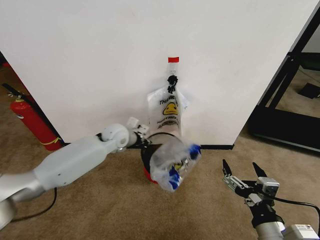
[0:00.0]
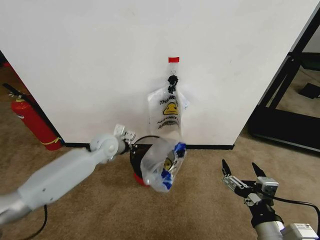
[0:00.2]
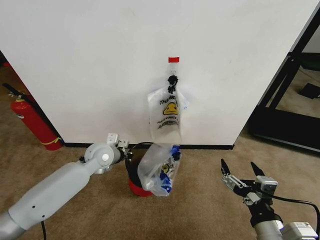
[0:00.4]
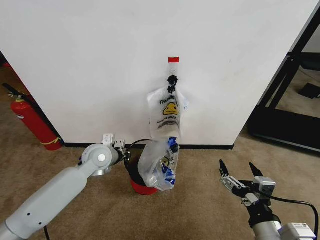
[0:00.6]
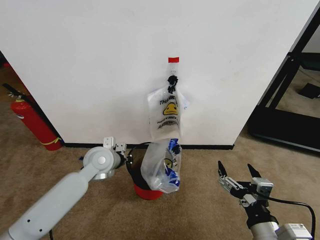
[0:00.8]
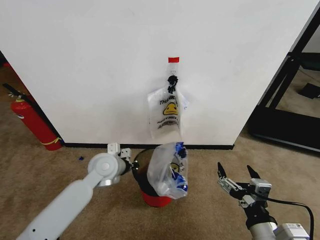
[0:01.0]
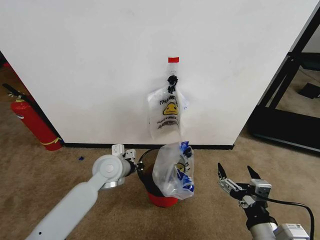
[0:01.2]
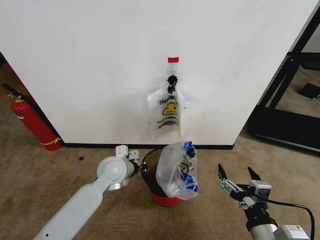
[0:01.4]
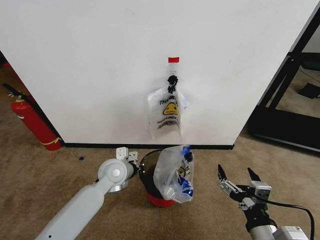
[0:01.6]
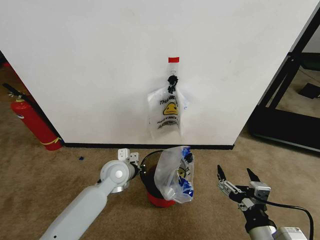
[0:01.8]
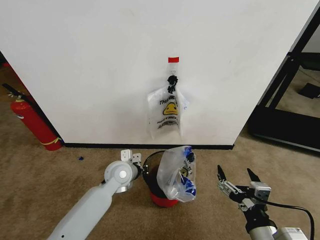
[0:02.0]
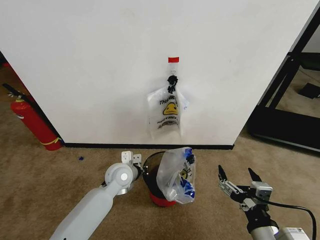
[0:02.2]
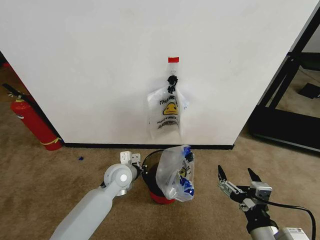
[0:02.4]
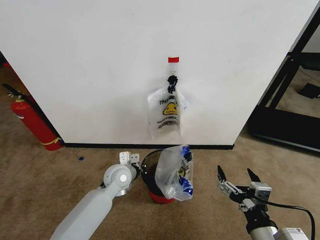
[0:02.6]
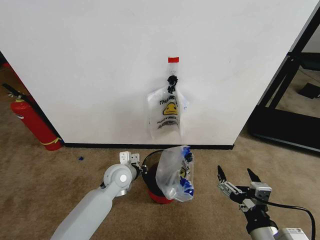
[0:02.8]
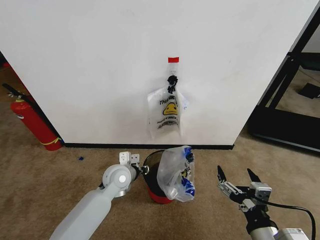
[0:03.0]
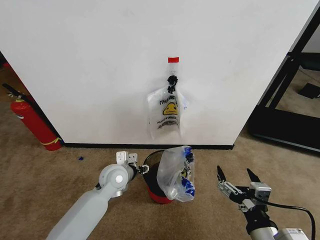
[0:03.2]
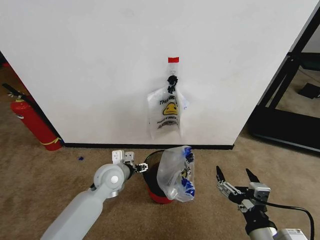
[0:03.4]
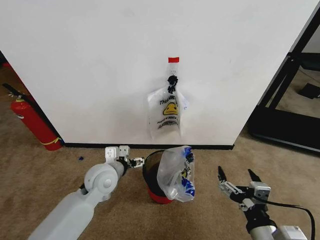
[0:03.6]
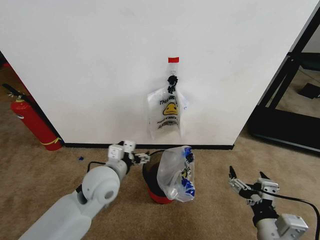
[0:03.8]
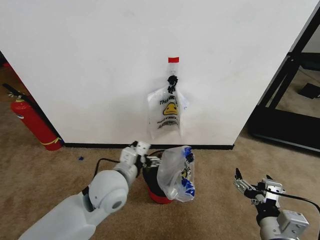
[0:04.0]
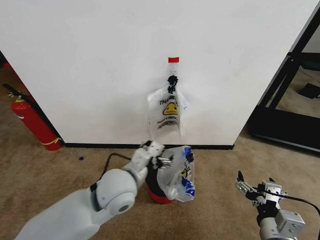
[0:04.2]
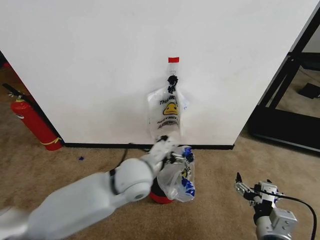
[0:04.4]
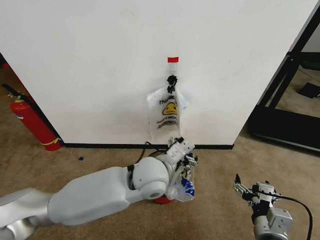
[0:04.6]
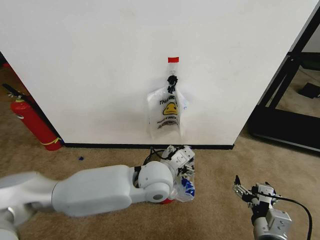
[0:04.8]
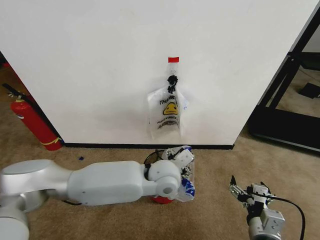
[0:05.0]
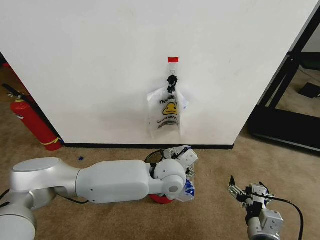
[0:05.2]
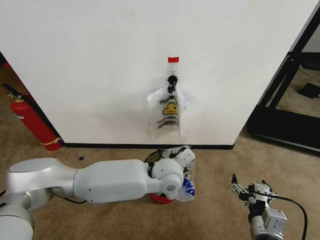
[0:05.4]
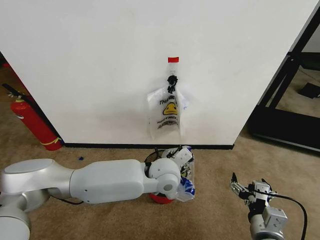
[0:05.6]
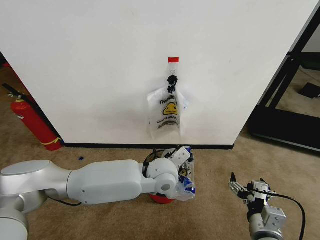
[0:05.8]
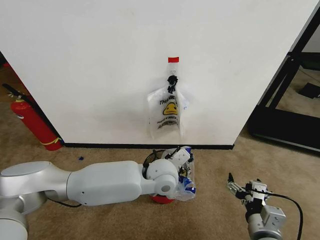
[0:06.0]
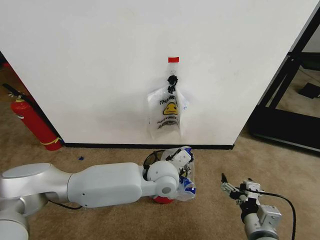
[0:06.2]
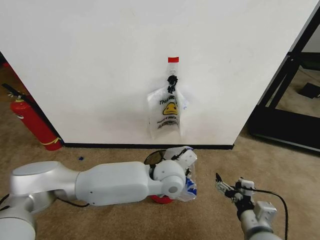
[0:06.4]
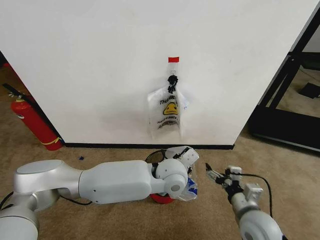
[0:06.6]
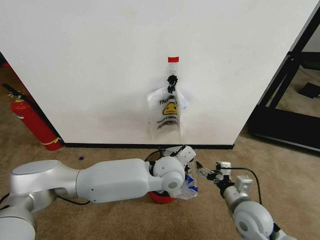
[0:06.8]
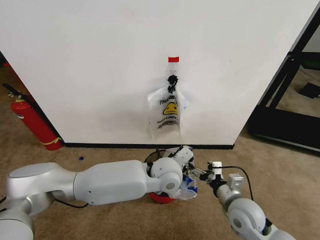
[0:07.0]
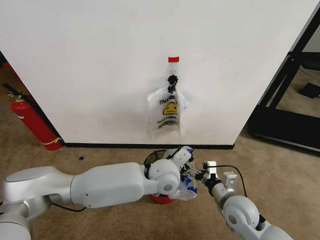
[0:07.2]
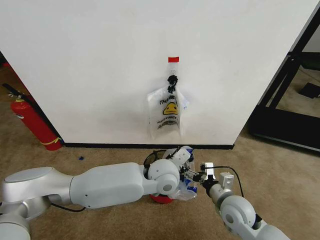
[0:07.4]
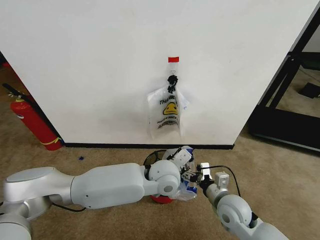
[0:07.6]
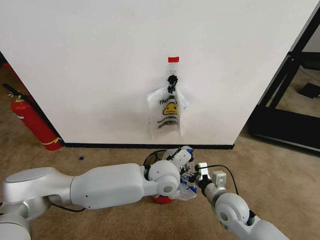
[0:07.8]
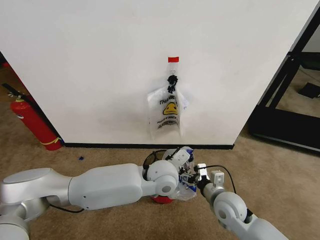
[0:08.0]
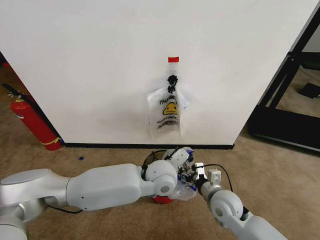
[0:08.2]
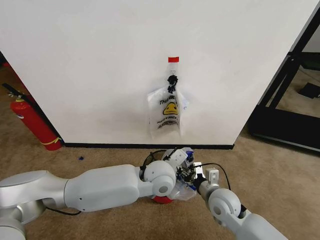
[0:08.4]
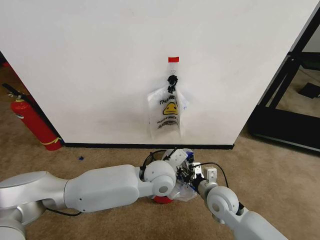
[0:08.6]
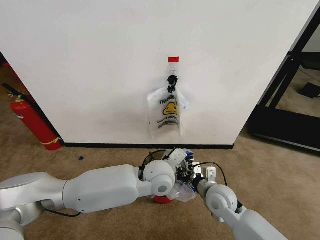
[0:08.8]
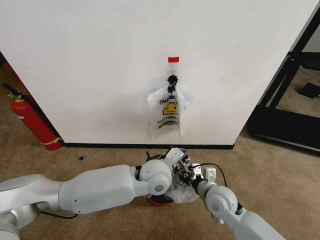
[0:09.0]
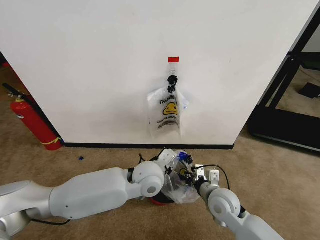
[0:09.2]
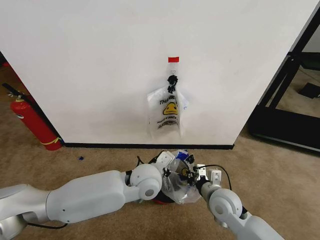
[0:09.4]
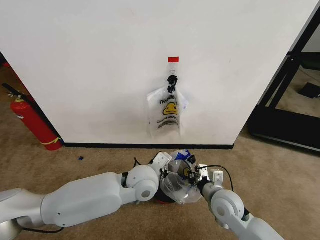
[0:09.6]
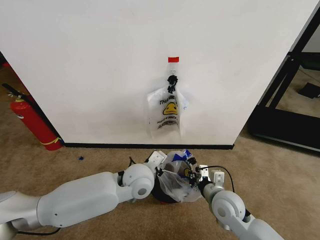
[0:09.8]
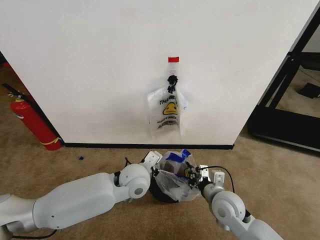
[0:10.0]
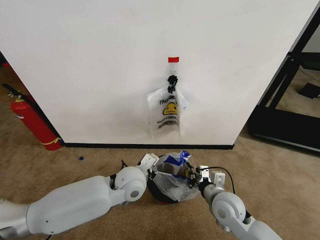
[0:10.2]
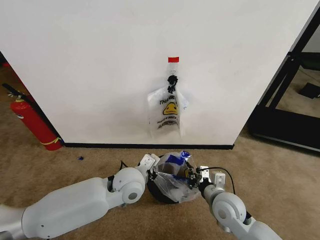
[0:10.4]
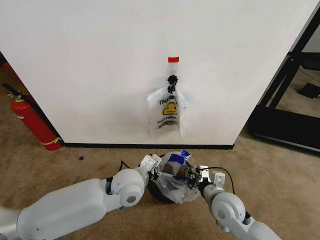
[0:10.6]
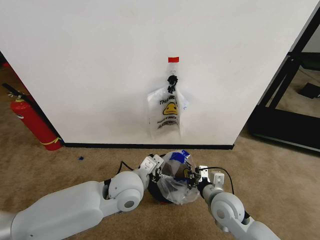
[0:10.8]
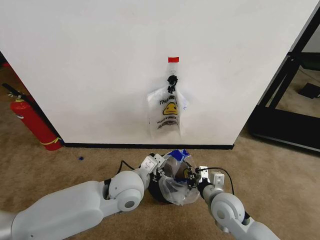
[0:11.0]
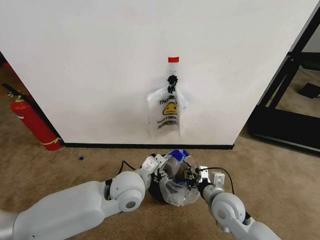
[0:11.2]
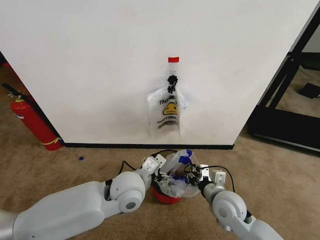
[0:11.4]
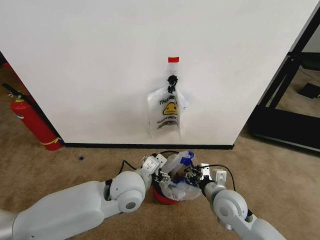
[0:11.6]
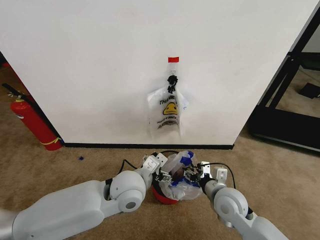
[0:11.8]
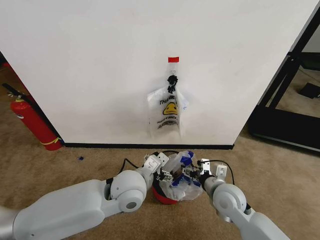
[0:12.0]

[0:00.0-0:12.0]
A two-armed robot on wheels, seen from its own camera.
Task of the whole recording: Pick up the garbage bag from the wall and place it over the trash bin.
0:00.0 to 0:01.6: The left gripper shifts approximately 15 cm backward and downward.
0:01.6 to 0:03.0: The left gripper opens its fingers.
0:03.0 to 0:04.4: The right gripper shifts by some 5 cm, while the left gripper goes roughly 15 cm upward, to the right and backward, and opens its fingers.
0:04.4 to 0:06.0: The left gripper is displaced to the right by approximately 5 cm, and closes.
0:06.0 to 0:07.6: The right gripper is displaced forward by about 10 cm.
0:07.6 to 0:09.0: The right gripper closes up.
0:09.0 to 0:10.4: The left gripper moves to the left, about 10 cm.
0:10.4 to 0:12.0: The left gripper shifts by roughly 5 cm, and opens; the right gripper opens up.

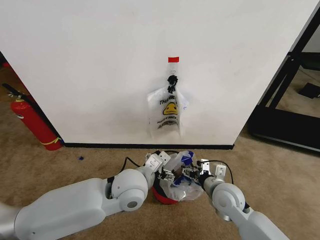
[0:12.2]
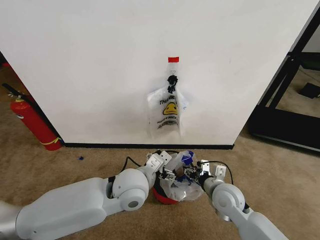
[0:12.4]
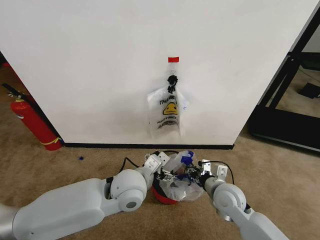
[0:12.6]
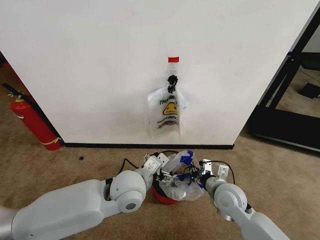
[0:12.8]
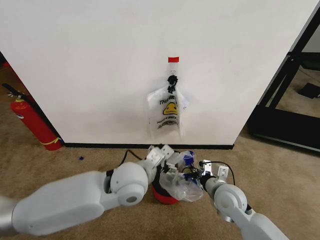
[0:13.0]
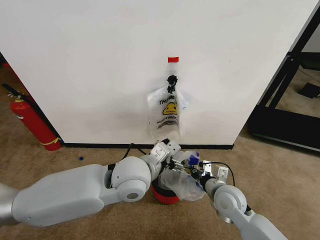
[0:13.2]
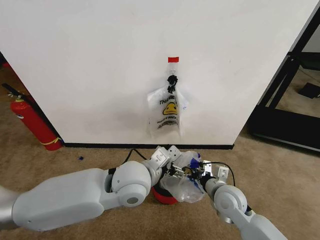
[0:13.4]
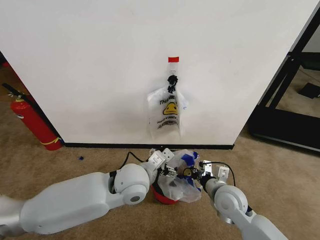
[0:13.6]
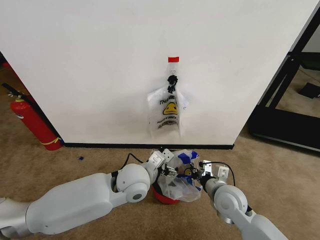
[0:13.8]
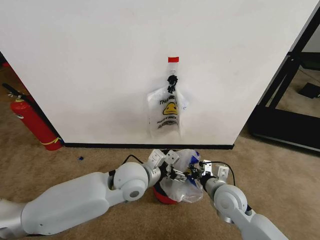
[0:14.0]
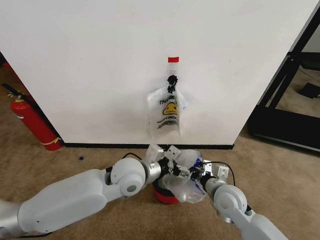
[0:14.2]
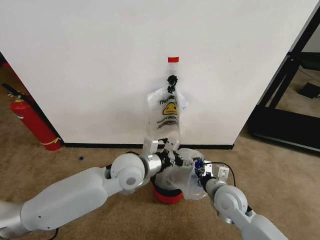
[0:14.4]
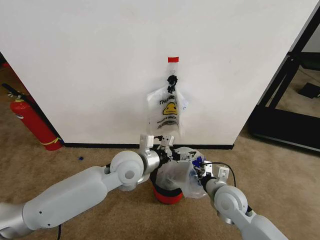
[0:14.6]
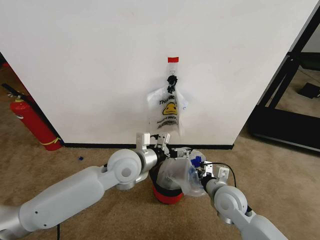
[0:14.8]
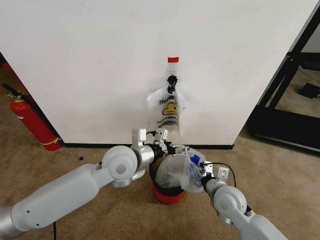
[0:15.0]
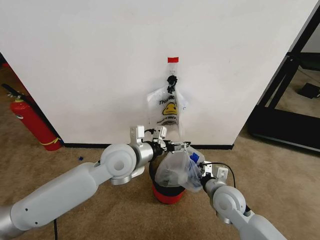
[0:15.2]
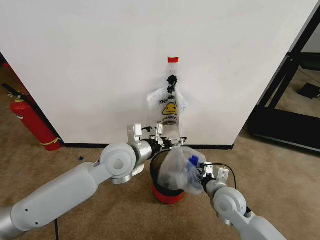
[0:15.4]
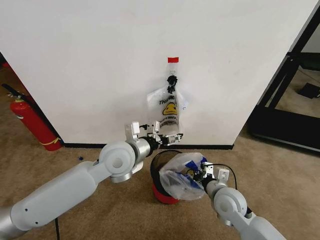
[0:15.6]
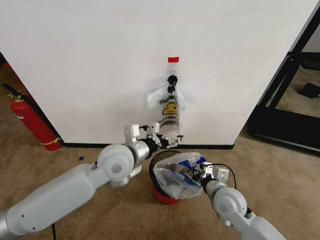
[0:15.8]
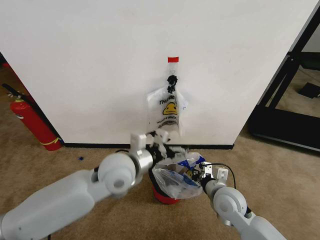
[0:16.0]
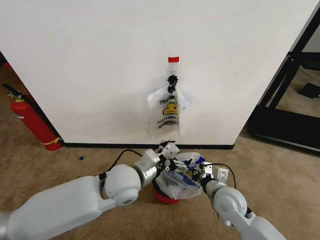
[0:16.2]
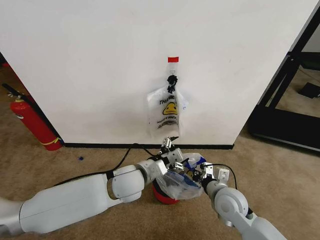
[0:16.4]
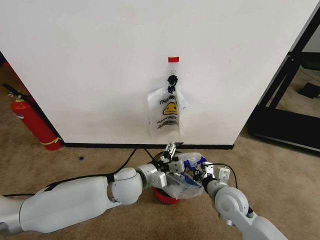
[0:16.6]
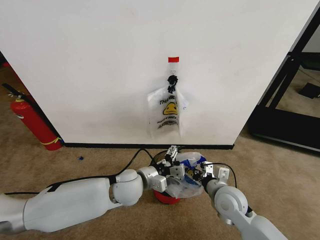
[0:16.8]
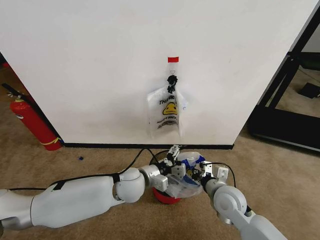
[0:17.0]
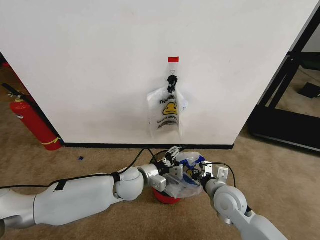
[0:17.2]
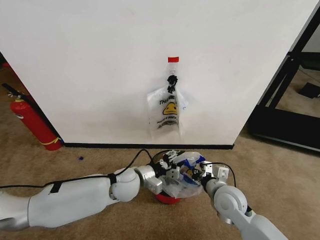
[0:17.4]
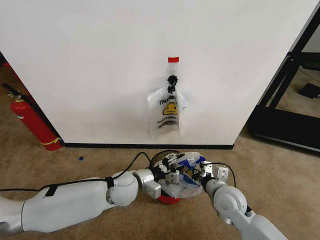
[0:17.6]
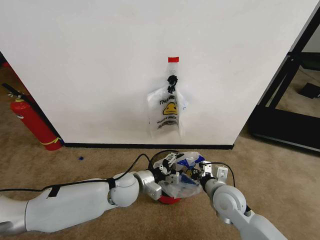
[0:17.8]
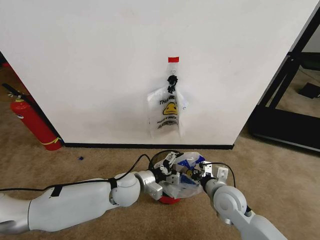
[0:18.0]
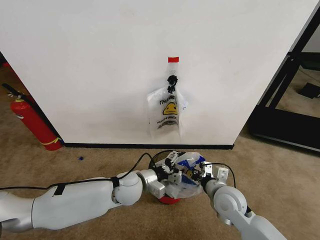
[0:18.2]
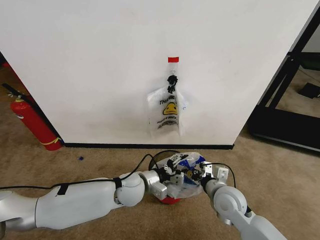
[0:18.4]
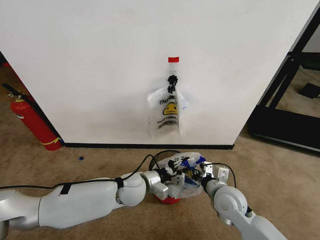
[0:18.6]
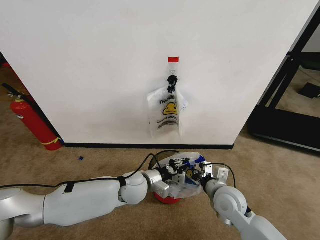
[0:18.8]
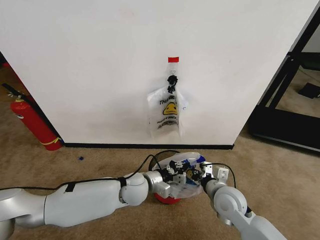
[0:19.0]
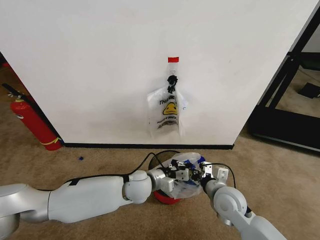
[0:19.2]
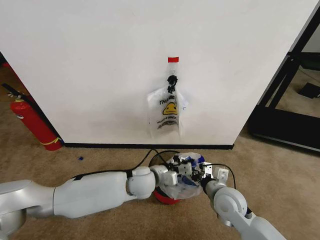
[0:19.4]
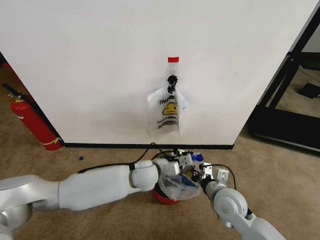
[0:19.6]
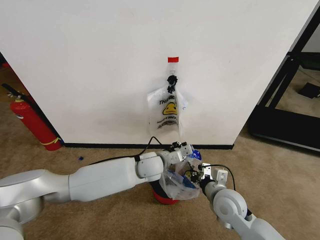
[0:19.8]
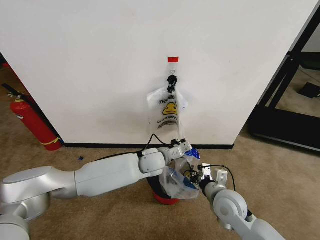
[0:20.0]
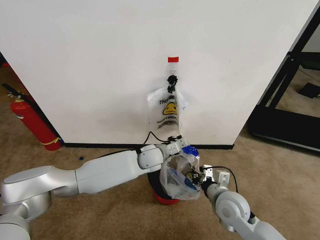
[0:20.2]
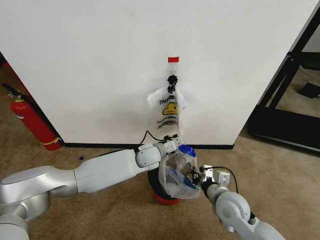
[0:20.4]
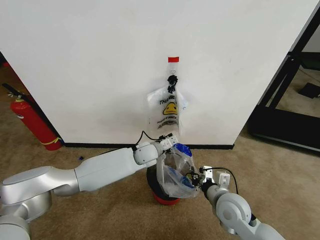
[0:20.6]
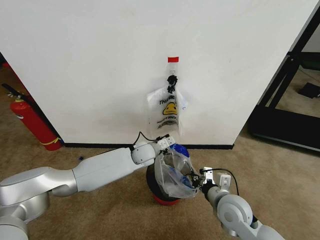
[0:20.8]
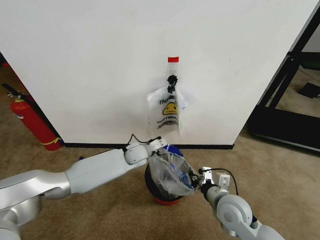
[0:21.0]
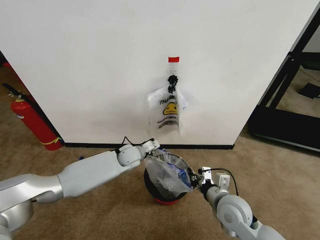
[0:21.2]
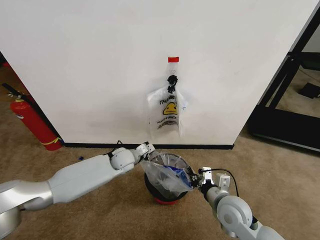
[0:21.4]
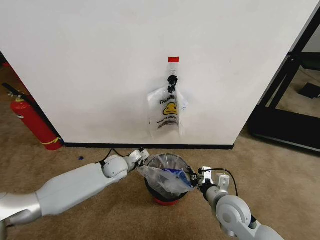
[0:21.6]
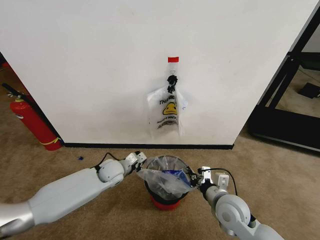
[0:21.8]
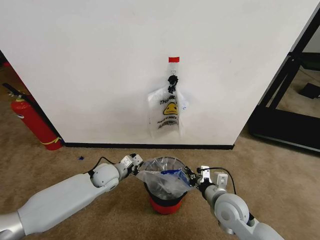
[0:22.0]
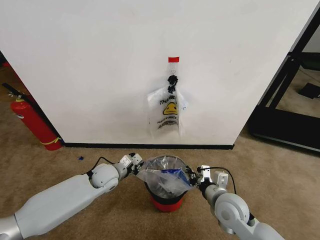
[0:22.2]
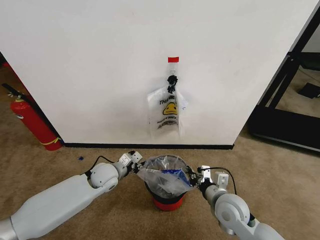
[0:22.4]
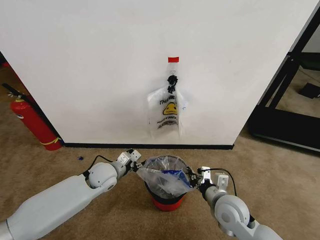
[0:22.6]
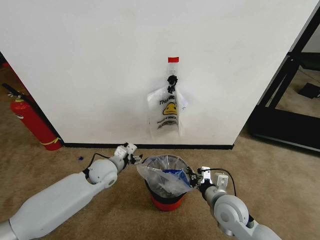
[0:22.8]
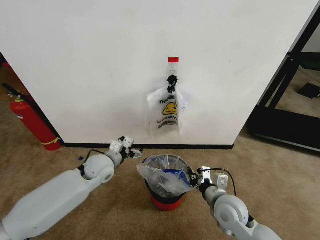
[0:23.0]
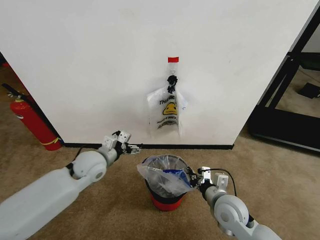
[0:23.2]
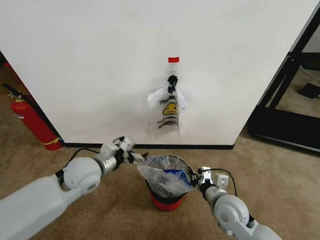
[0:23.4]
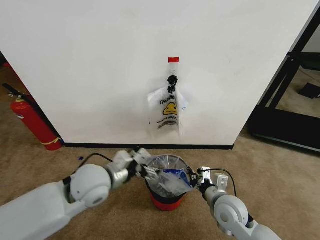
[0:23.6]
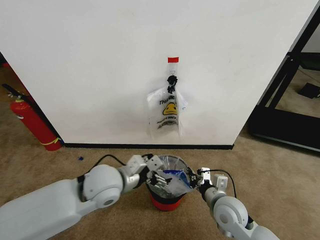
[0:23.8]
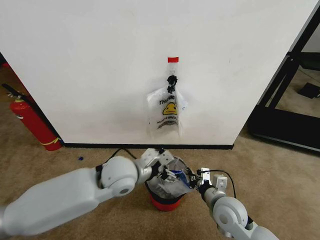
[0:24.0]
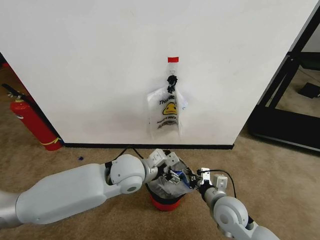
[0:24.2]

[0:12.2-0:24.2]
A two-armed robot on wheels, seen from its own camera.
Task of the whole recording: Pick up the garbage bag from the wall and place it over the trash bin.
0:12.2 to 0:13.8: The right gripper closes.
0:13.8 to 0:15.2: The left gripper heads upward, covering about 5 cm.
0:15.2 to 0:16.6: The left gripper shifts approximately 10 cm downward.
0:16.6 to 0:18.2: The left gripper goes about 5 cm downward.
0:18.2 to 0:19.8: The left gripper heads to the right and forward, covering about 10 cm, and closes its fingers.
0:19.8 to 0:21.2: The left gripper shifts approximately 10 cm to the left and forward.
0:21.2 to 0:22.6: The left gripper travels backward and to the left by some 10 cm, and opens its fingers.
0:22.6 to 0:24.2: The left gripper moves upward, to the right and backward, some 20 cm, and opens up.
